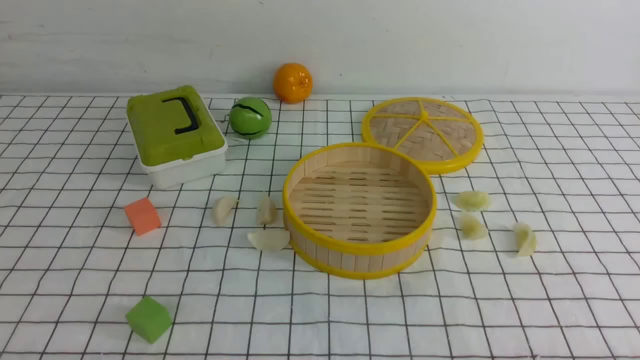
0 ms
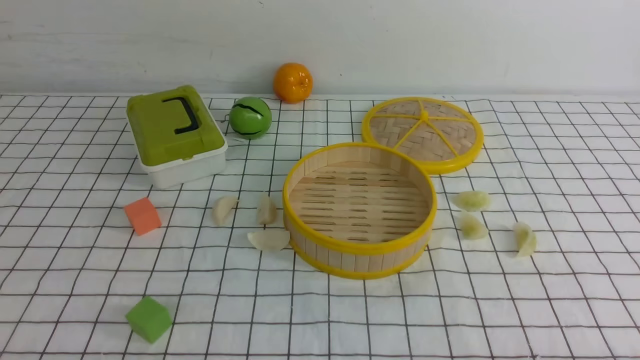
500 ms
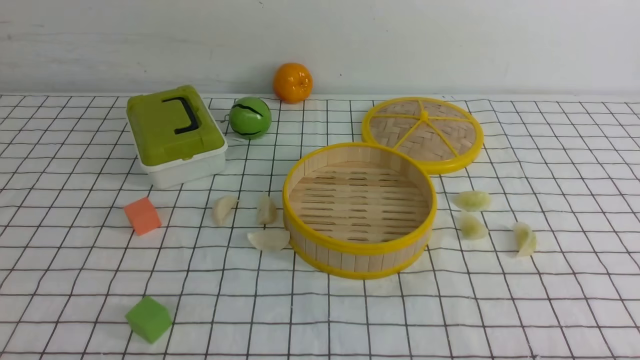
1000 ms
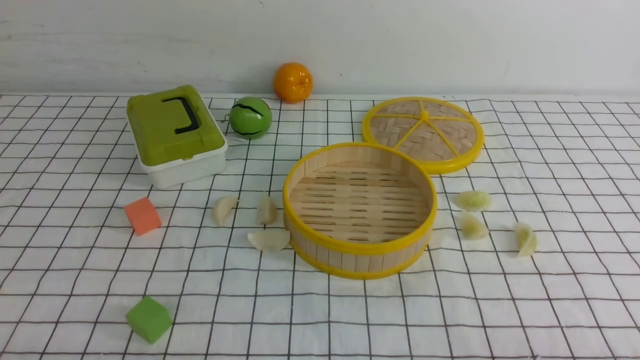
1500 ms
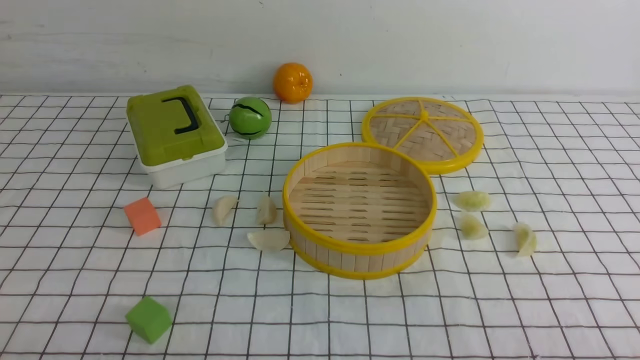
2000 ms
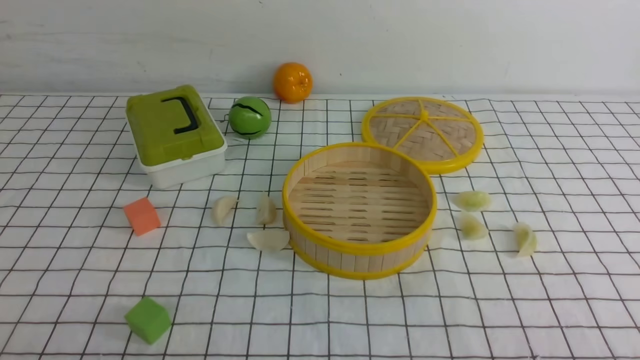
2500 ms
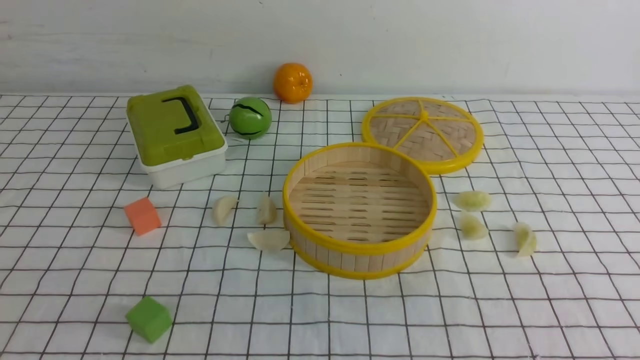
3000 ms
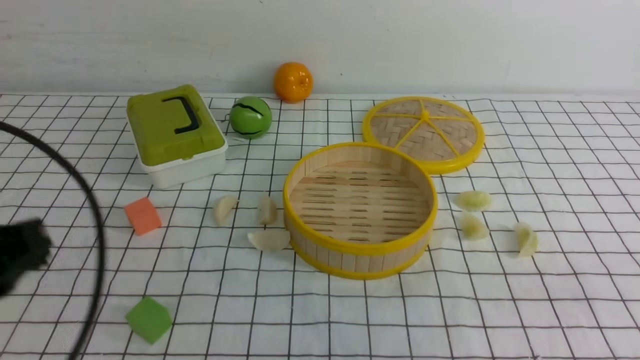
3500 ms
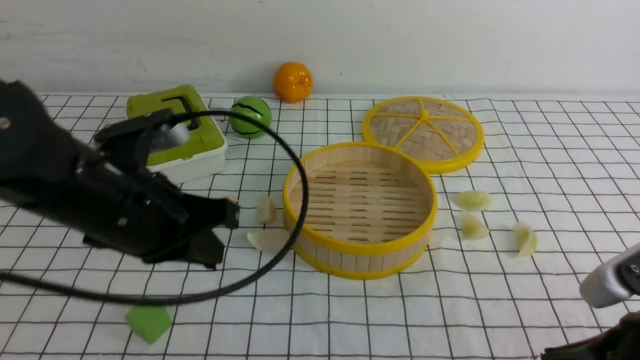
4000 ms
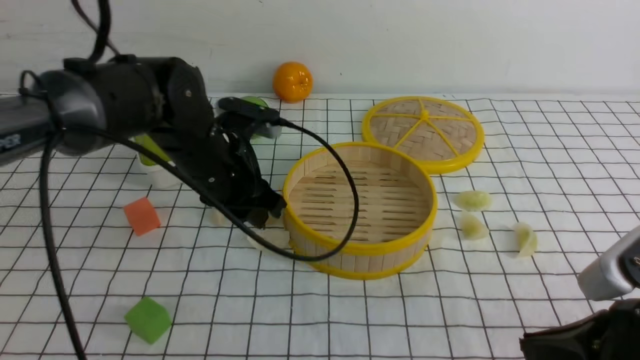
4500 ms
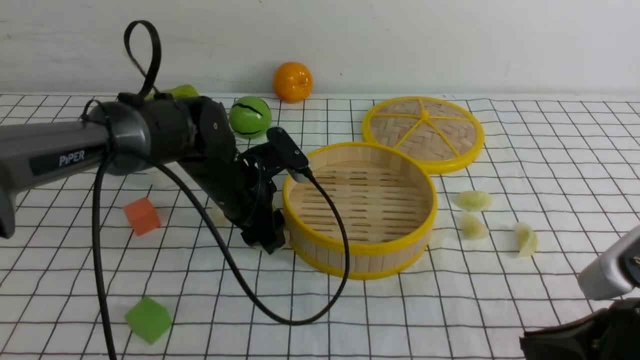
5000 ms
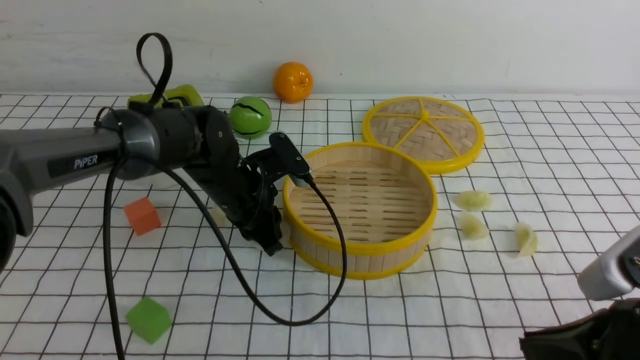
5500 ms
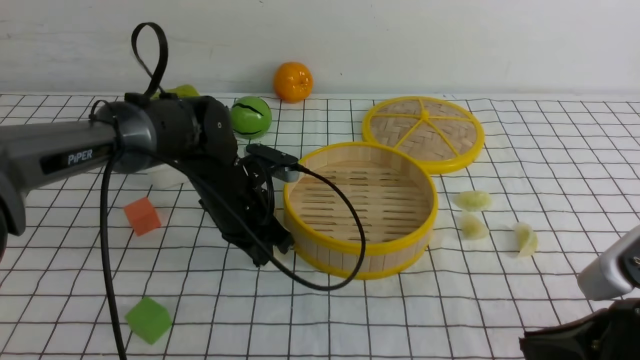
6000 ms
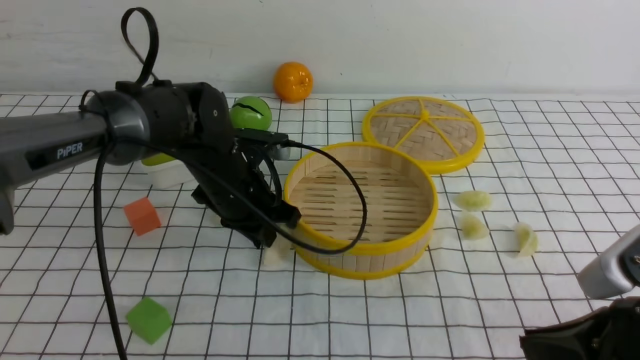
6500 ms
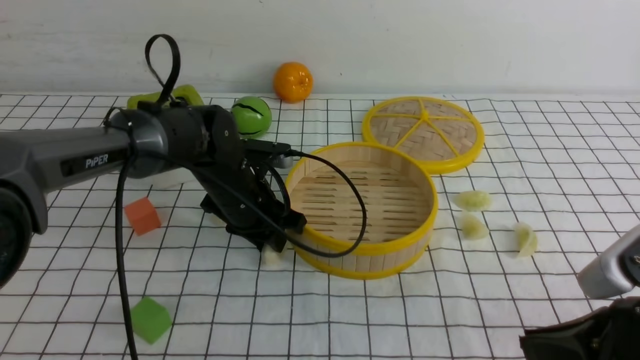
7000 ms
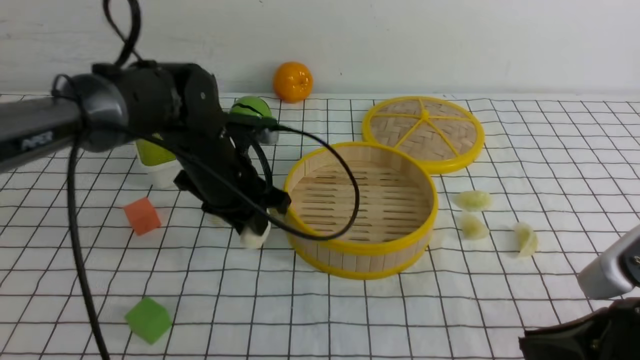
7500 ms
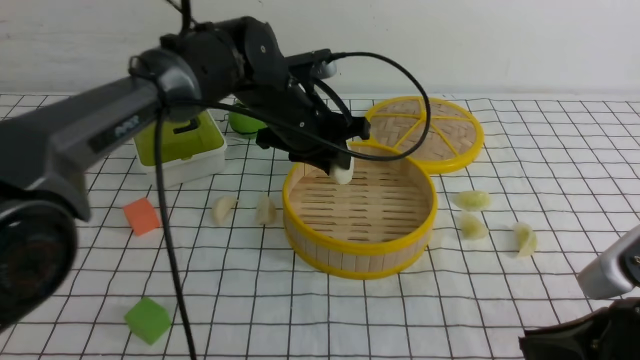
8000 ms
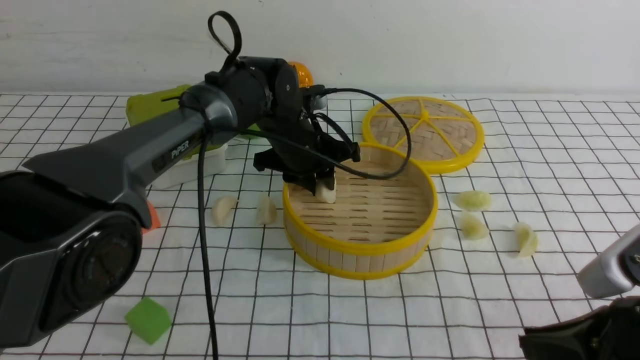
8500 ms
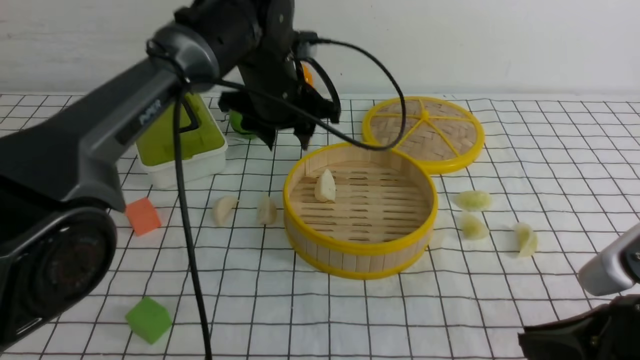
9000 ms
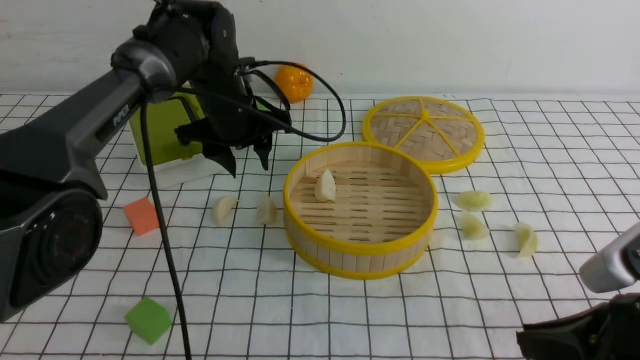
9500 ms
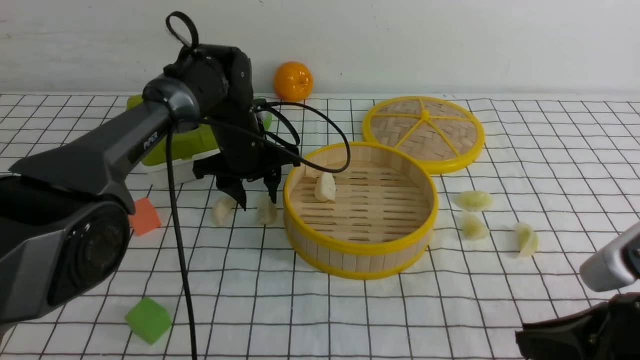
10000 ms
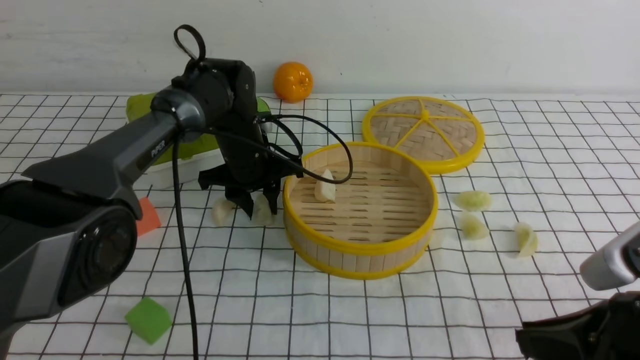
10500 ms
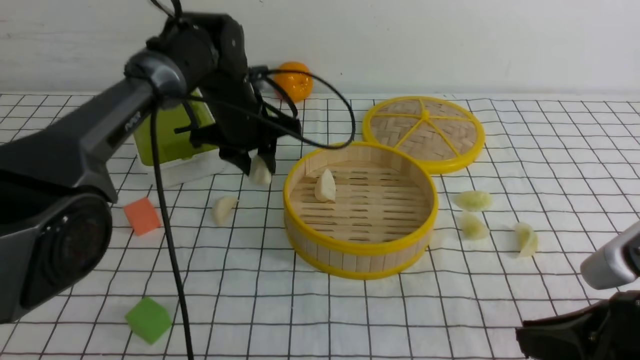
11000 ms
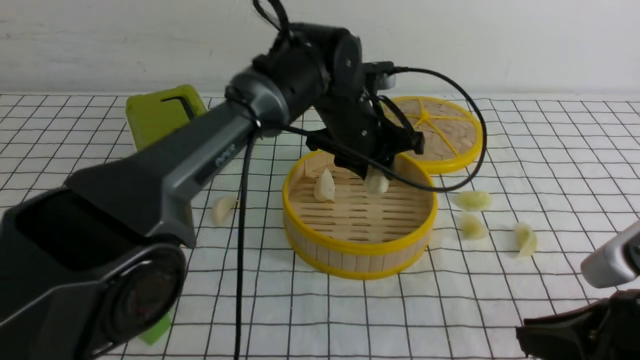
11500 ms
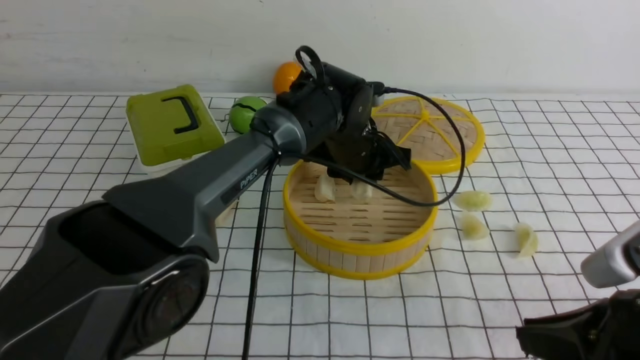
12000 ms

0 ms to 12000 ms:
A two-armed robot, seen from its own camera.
Task of the whole recording: put the dumplings into the steamer on the table with the white tablecloth.
Step, 0 ms to 7500 ms: use the left arm to grab a dumpling.
Step, 8000 ms to 9000 ms: use the left arm to put the dumpling into the steamer.
Step, 9500 ms to 10500 ms: use the left arm to grab a dumpling.
2000 ms to 4000 ms: The right gripper moves forward and to the left, roughly 10 cm, and closes up; the left gripper is displaced forward, to the right and upward by some 25 cm, and closes its fingers.
4000 ms to 6000 ms: The left gripper shifts approximately 15 cm forward, downward and to the right, and opens and closes again.
6000 ms to 8000 ms: The left gripper goes roughly 10 cm upward and to the right, and opens up.
8000 ms to 10000 ms: The left gripper swings up and down, some 10 cm each way, with 2 reversals, and opens its fingers.
10000 ms to 12000 ms: The left gripper shifts about 15 cm to the right.

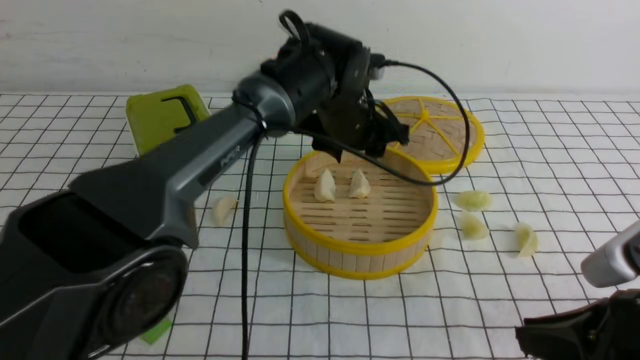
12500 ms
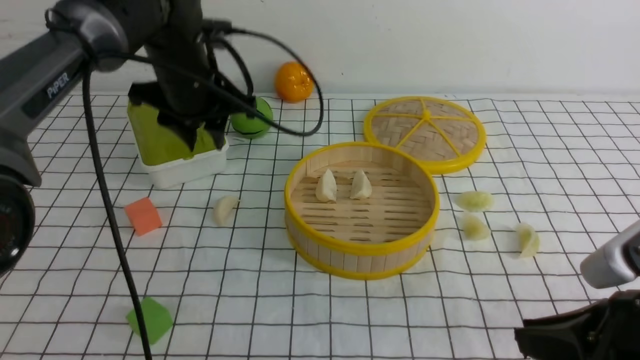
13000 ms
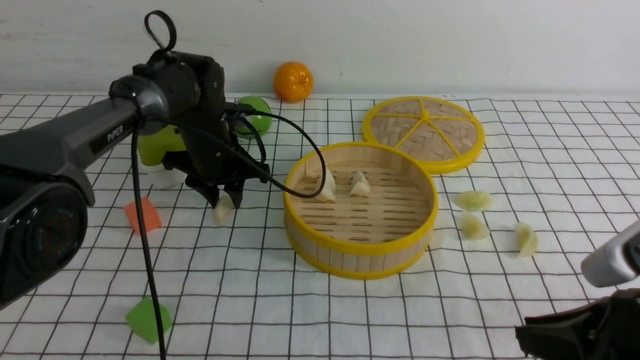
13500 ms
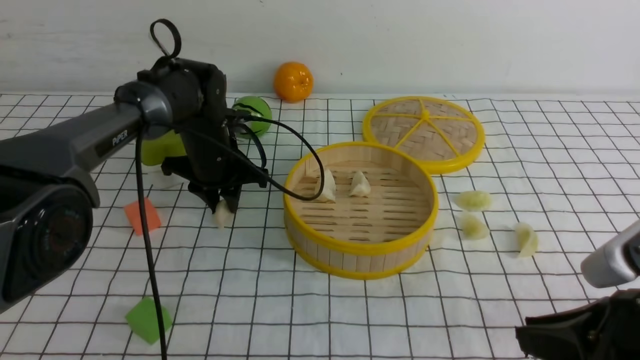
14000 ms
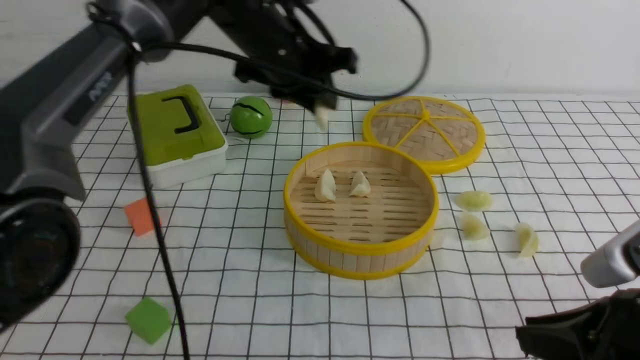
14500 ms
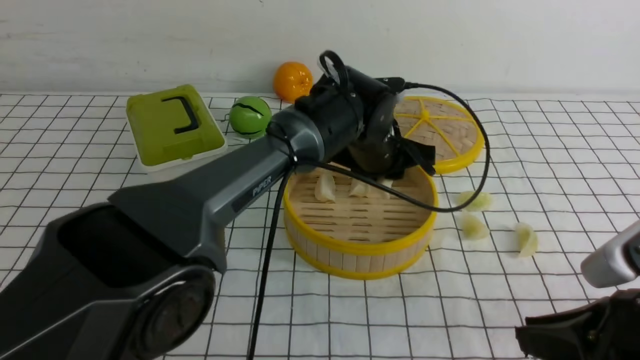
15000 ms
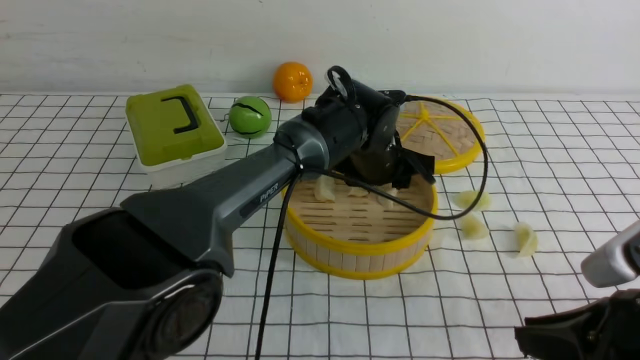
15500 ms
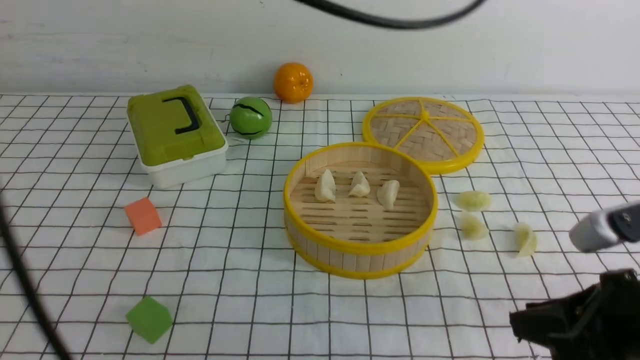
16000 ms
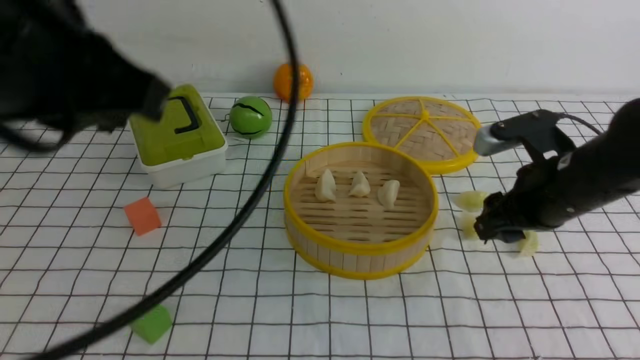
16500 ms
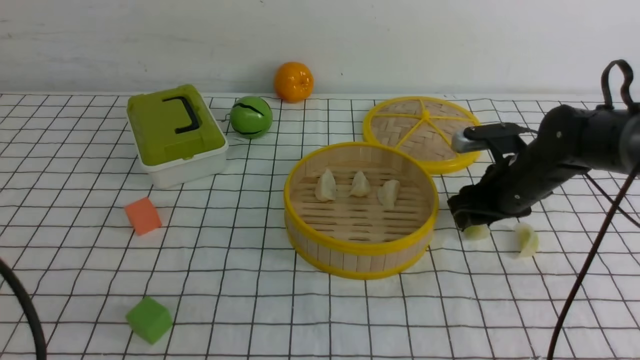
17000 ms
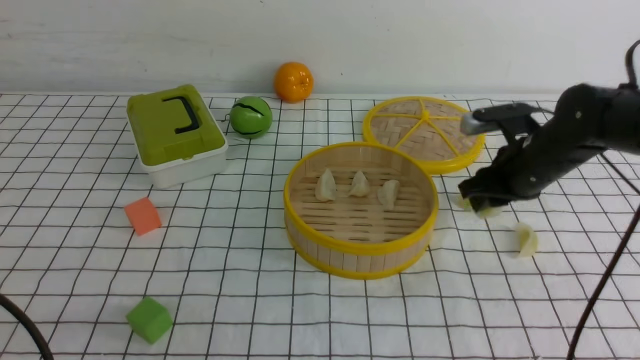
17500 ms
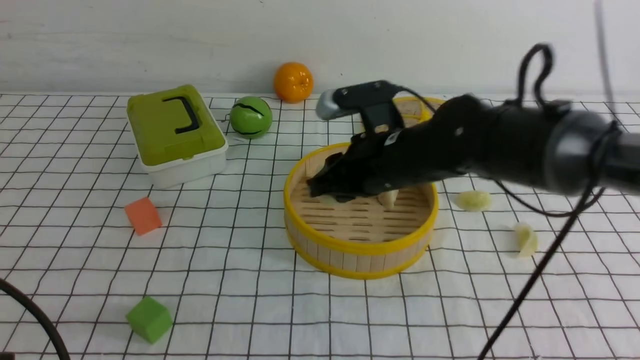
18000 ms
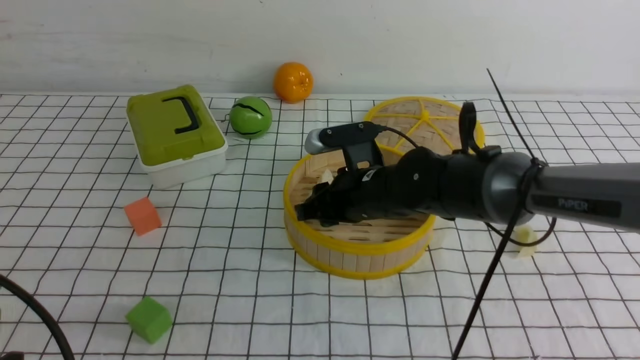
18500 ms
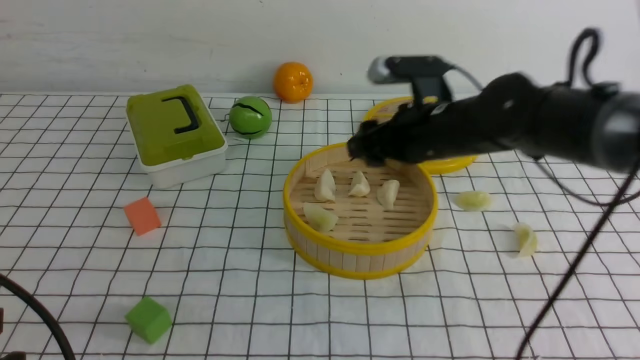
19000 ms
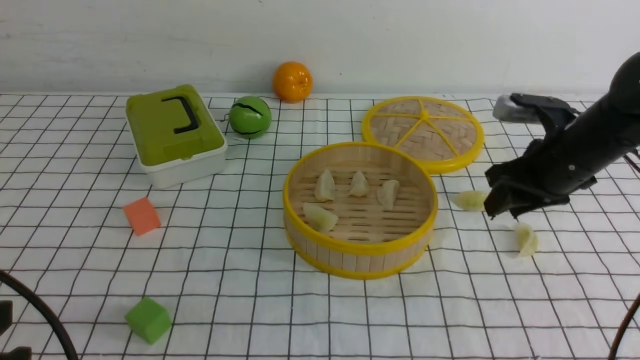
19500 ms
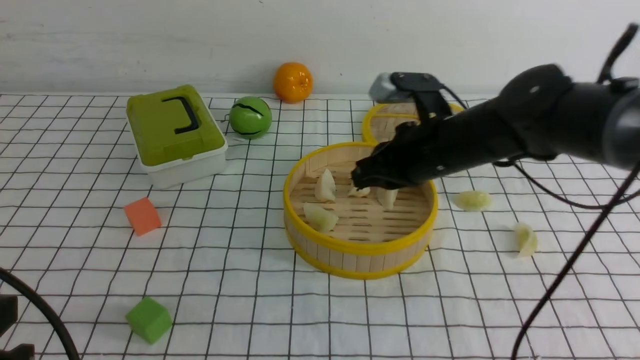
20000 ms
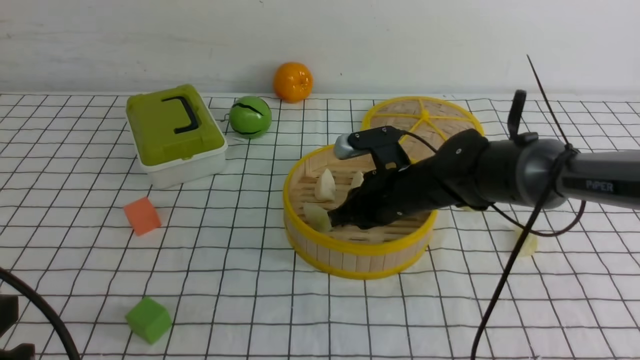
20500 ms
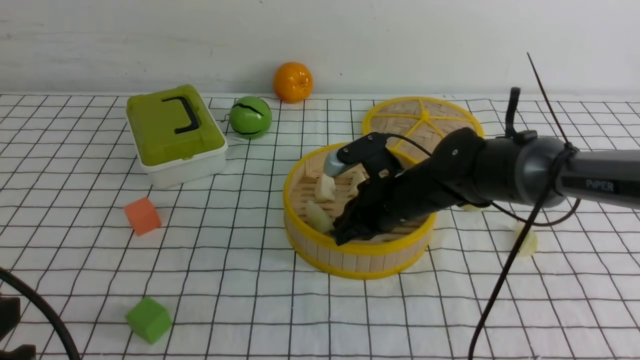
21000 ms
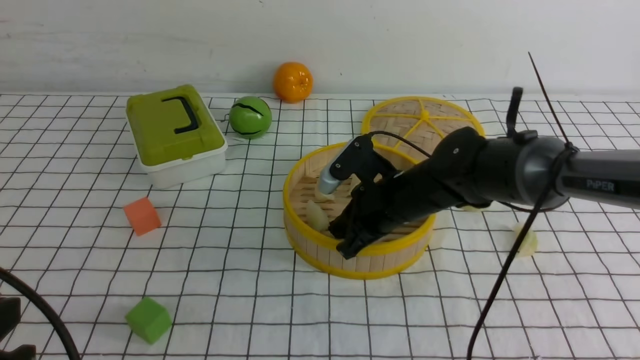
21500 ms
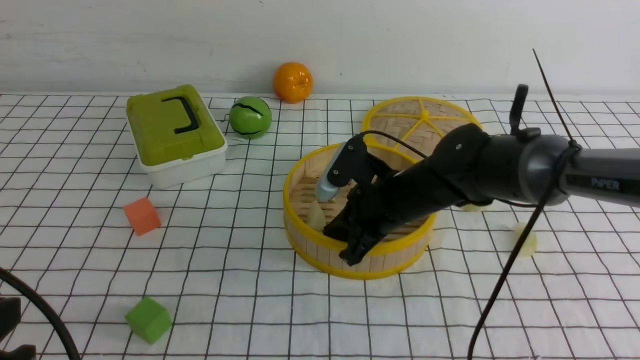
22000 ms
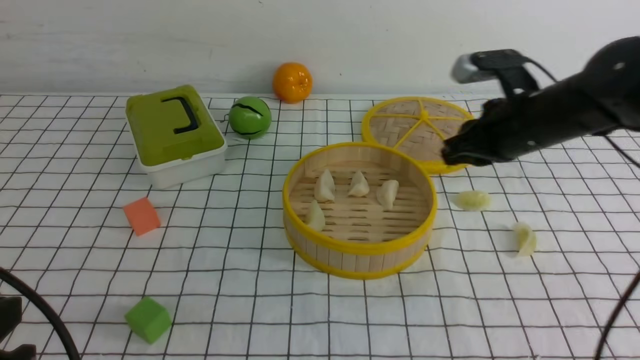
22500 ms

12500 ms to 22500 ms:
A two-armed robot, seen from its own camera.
Task of the whole recording: put the dumplings into the steamer on the table with the white tablecloth.
Step, 13000 ms to 14000 ms: use the left arm to grab a dumpling.
Step, 14500 ms to 15500 ms: use the left arm to put the dumpling into the steamer.
Step, 16000 ms to 17500 ms: use the right arm to grab a dumpling.
Step, 18000 ms to 18500 ms: use the right arm to put the dumpling into the steamer.
12500 ms to 14500 ms: The left gripper moves about 15 cm to the left and comes back, and closes its fingers.
14500 ms to 16500 ms: The right gripper shifts about 20 cm forward, and opens its fingers. Meanwhile the left gripper goes up and down, approximately 25 cm each way, reversing 2 times, and closes up.
16500 ms to 18500 ms: The left gripper moves downward, backward and to the left, approximately 20 cm; the right gripper is displaced to the left by roughly 15 cm.
18500 ms to 20500 ms: The right gripper travels to the right and back again, some 20 cm each way, and closes.
20500 ms to 22500 ms: The right gripper shifts some 15 cm to the right and upward.
